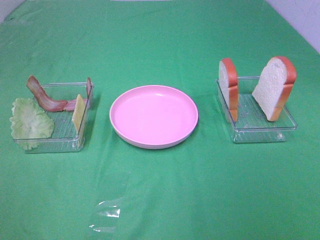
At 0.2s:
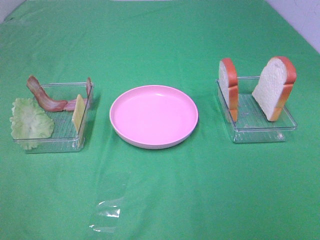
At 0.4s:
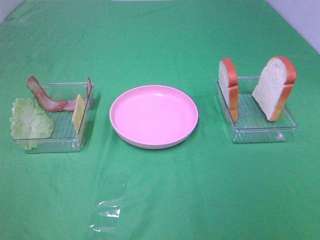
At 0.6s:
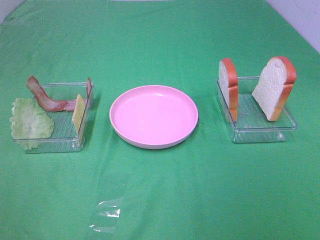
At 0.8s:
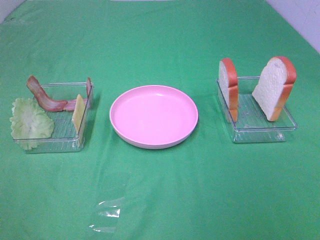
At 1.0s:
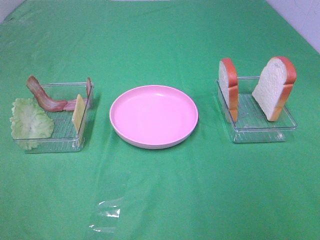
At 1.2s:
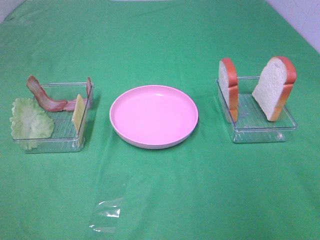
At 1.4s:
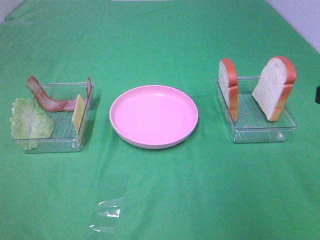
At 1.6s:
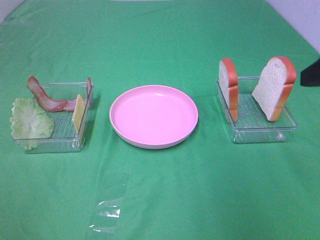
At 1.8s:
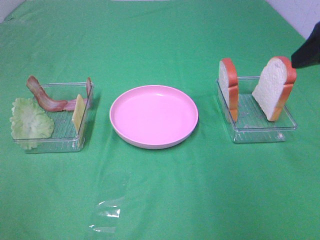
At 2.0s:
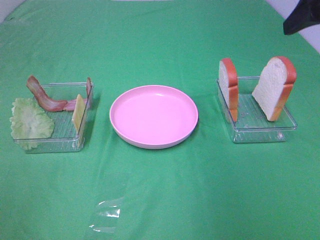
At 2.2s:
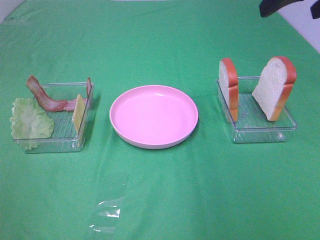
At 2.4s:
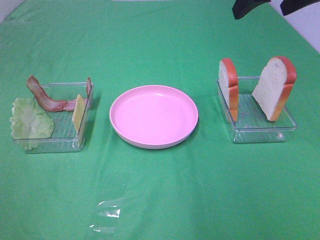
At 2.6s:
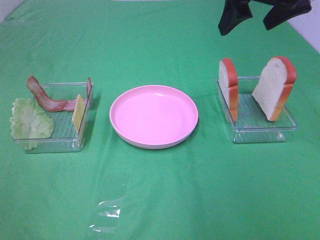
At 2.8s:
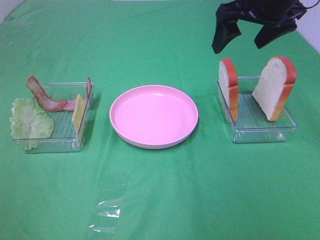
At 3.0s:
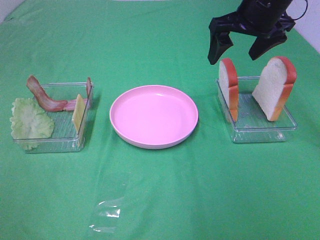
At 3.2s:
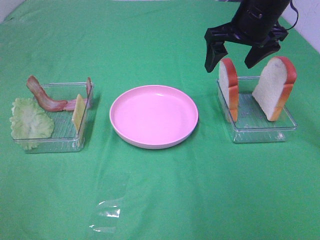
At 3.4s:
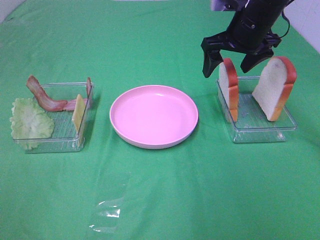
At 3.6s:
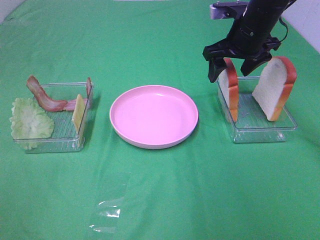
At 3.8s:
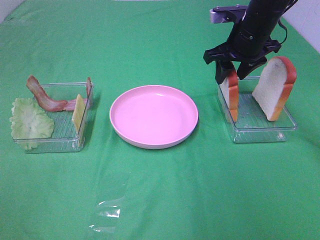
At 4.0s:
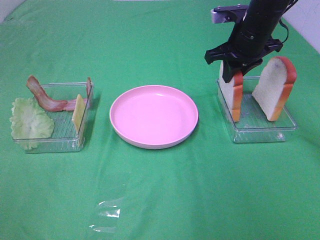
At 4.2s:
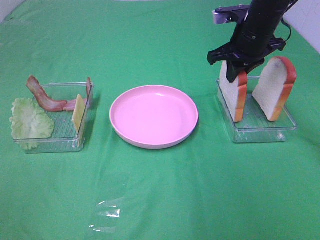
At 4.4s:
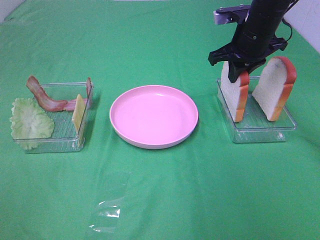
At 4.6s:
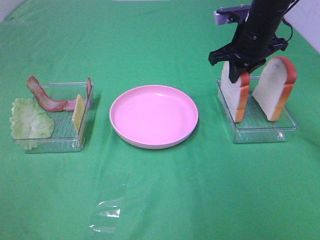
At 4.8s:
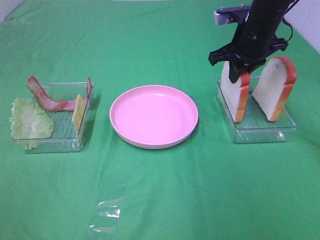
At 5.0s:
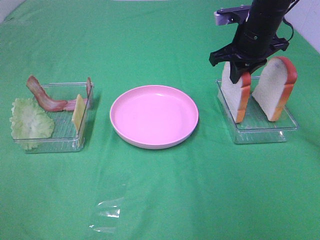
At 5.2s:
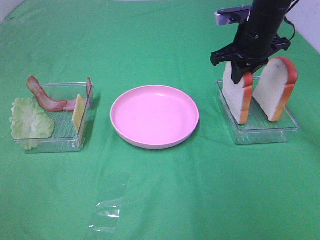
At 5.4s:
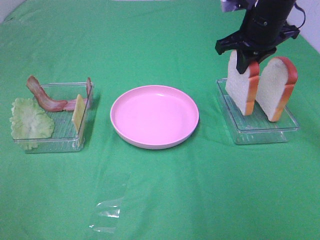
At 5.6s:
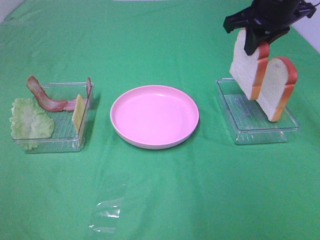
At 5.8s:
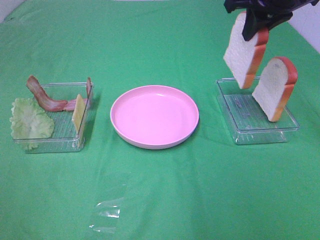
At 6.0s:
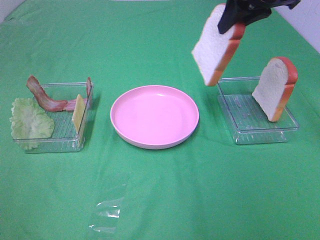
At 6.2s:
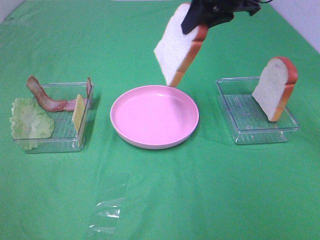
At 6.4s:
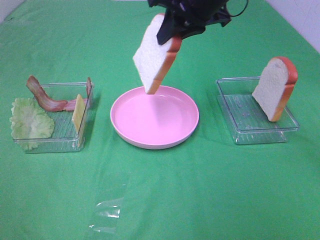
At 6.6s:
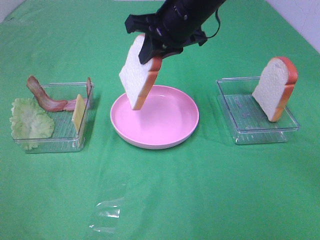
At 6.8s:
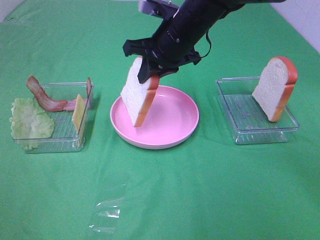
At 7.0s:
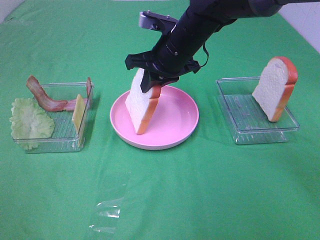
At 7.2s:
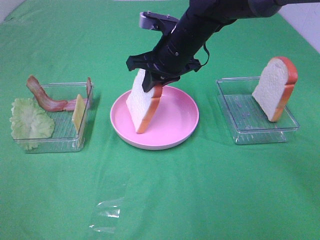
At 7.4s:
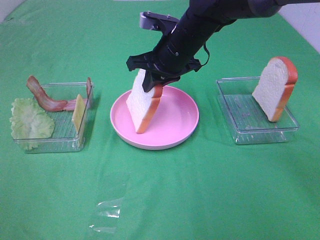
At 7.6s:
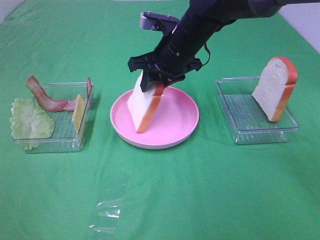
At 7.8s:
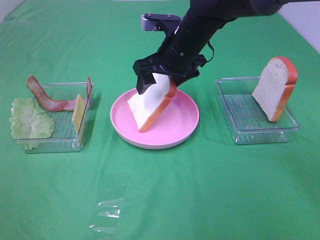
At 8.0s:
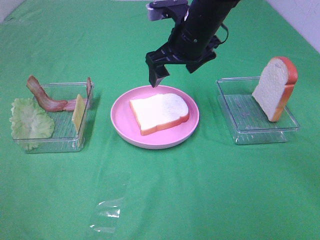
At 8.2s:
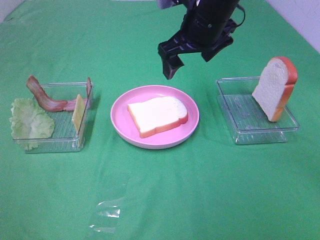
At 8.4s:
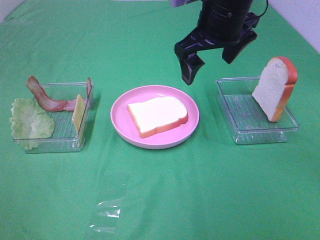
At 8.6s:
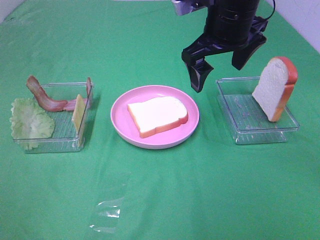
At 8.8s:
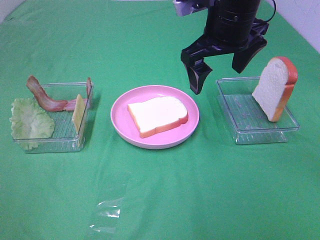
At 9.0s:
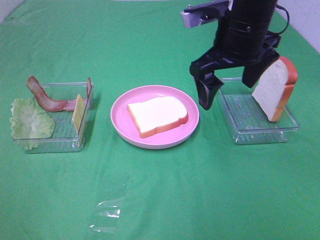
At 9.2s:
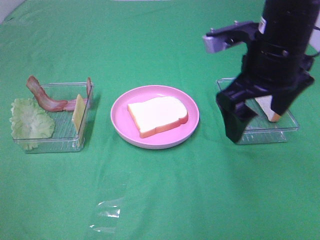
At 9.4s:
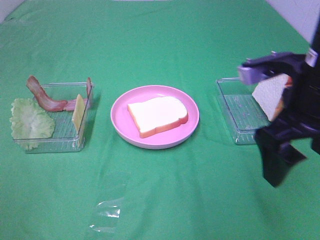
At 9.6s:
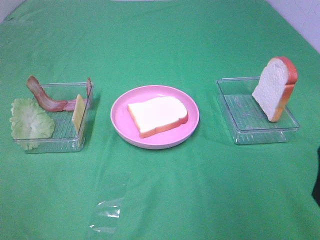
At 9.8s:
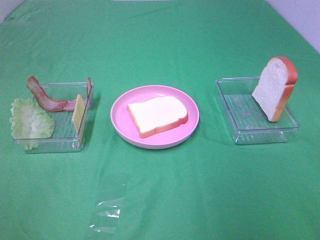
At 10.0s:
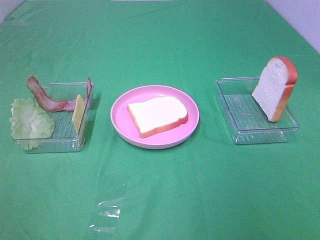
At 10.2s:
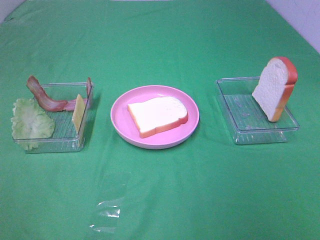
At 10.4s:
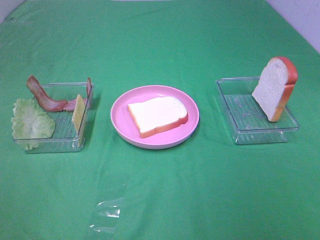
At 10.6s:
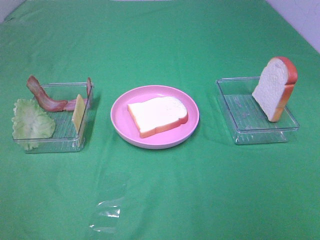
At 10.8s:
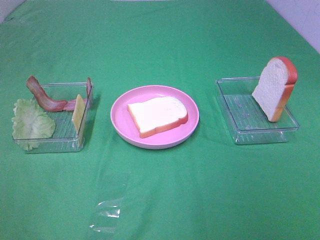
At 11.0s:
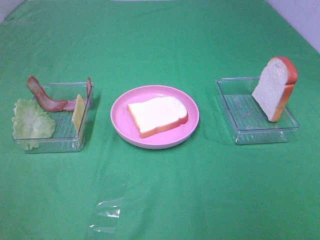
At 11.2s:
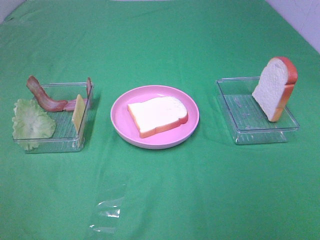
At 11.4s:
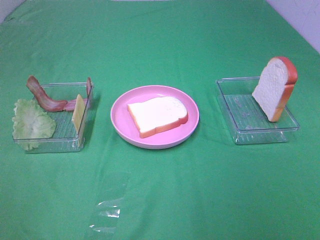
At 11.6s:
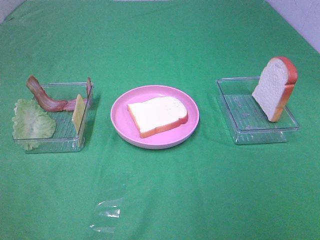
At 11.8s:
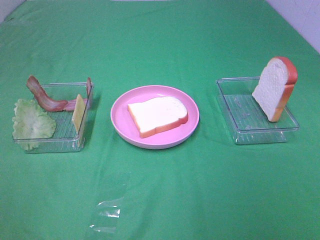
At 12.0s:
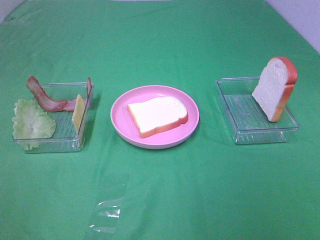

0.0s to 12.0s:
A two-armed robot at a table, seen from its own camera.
Task of the whole recording: Make sandwiches.
Step, 0.0s to 4.0s: Right hand:grab the bread slice.
Step, 4.2s to 8.0s: Right hand:place the bread slice on the plate.
1.6s to 3.0s: The right gripper moves forward and to the left, roughly 25 cm.
3.0s to 4.4s: The right gripper travels downward by some 5 cm, and closes up.
4.4s to 6.0s: The right gripper shifts approximately 15 cm upward and backward.
6.0s to 7.6s: The right gripper moves downward and to the left, about 20 cm, and opens its fingers.
7.6s to 9.0s: The right gripper travels backward, upward and to the right by roughly 15 cm, and opens its fingers.
9.0s to 10.4s: The right gripper travels backward and to the right by some 35 cm.

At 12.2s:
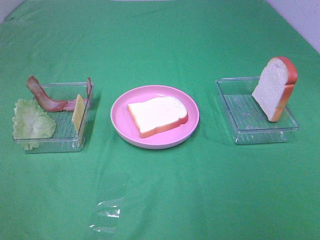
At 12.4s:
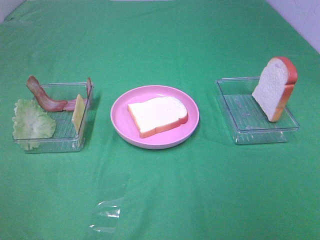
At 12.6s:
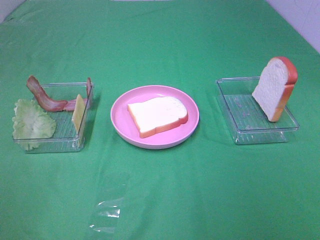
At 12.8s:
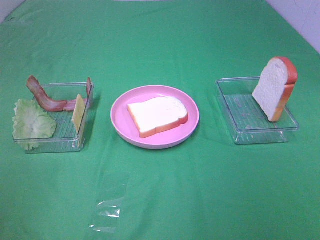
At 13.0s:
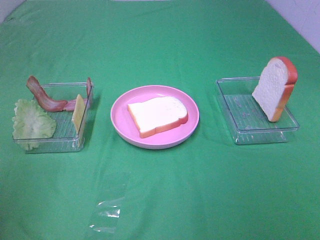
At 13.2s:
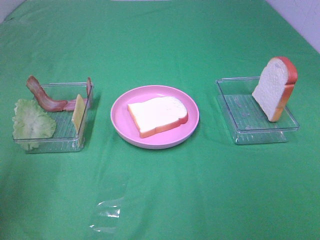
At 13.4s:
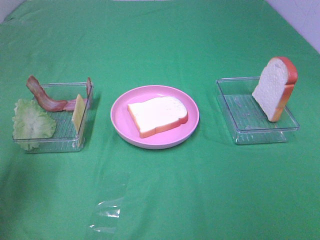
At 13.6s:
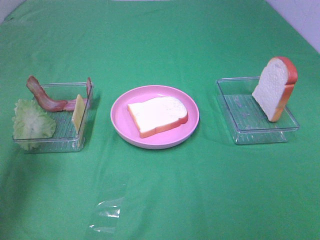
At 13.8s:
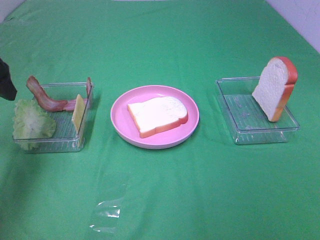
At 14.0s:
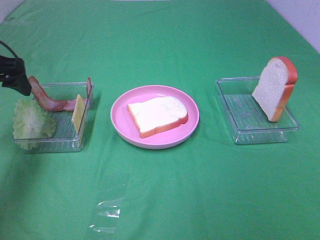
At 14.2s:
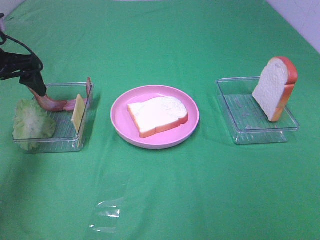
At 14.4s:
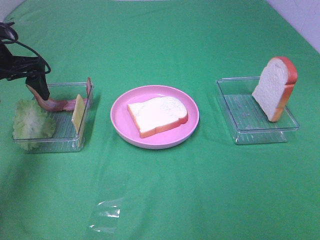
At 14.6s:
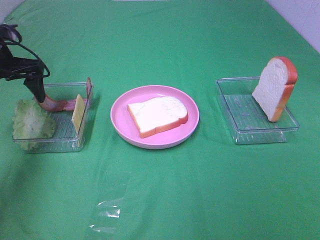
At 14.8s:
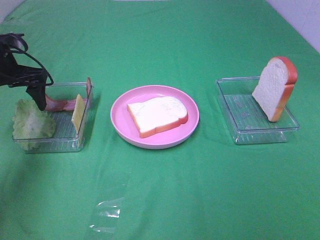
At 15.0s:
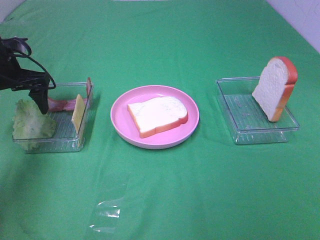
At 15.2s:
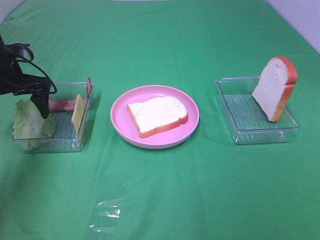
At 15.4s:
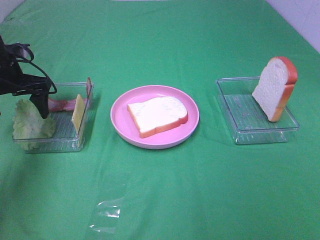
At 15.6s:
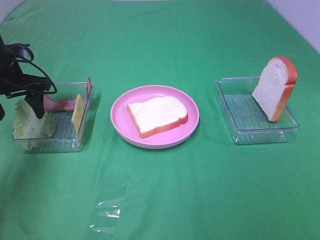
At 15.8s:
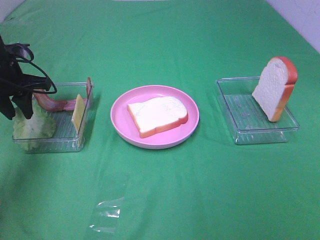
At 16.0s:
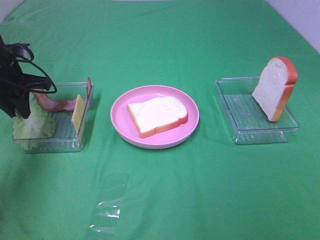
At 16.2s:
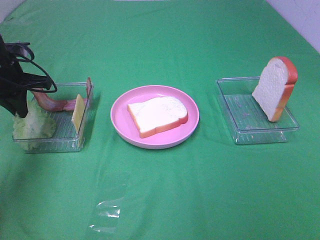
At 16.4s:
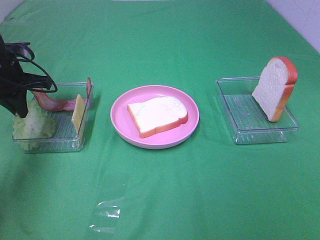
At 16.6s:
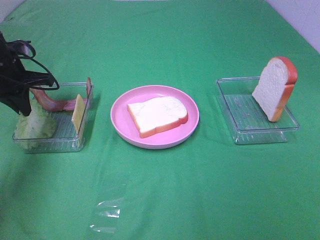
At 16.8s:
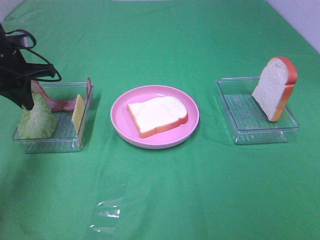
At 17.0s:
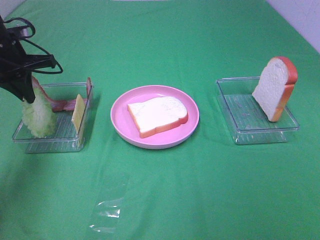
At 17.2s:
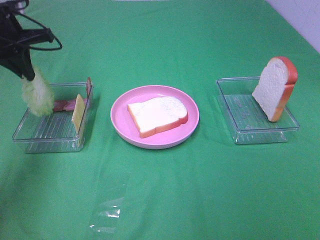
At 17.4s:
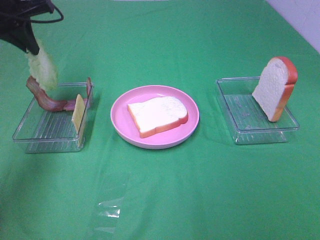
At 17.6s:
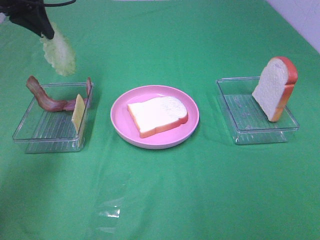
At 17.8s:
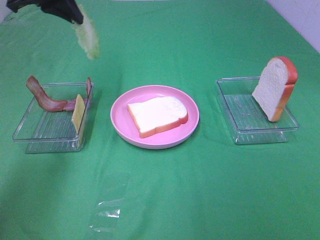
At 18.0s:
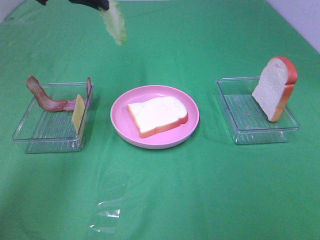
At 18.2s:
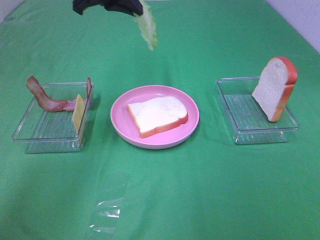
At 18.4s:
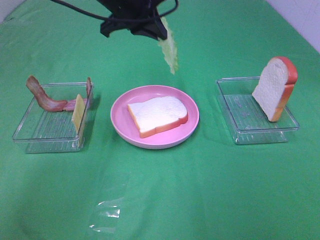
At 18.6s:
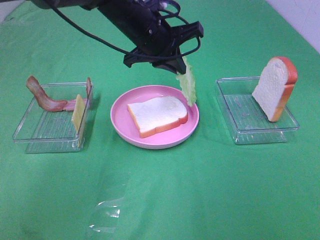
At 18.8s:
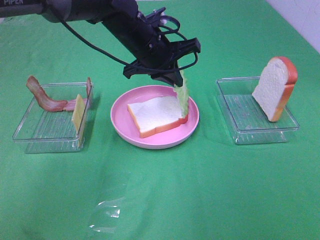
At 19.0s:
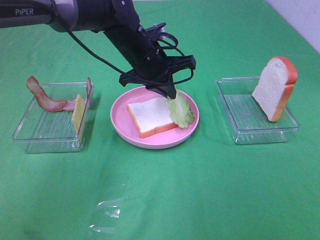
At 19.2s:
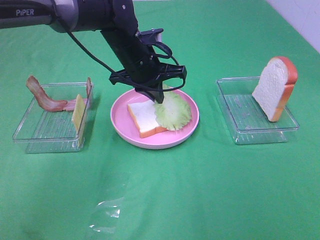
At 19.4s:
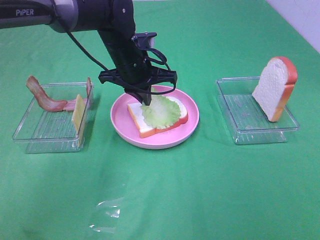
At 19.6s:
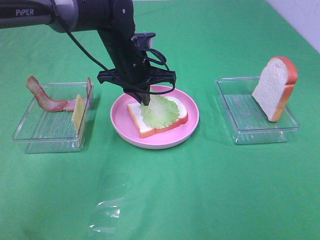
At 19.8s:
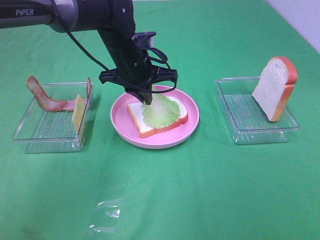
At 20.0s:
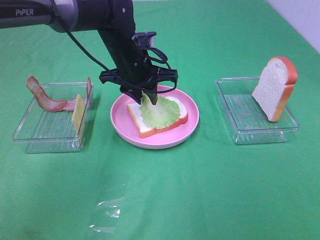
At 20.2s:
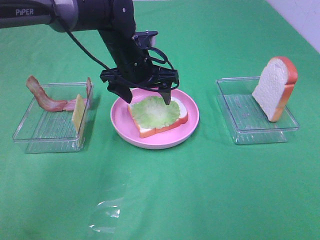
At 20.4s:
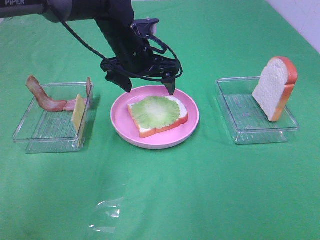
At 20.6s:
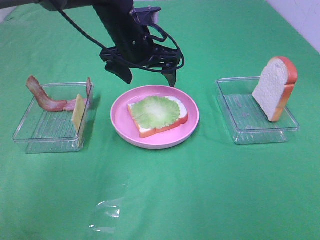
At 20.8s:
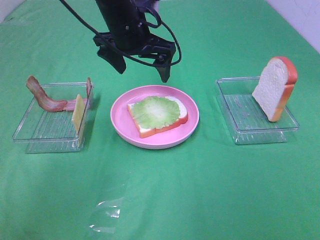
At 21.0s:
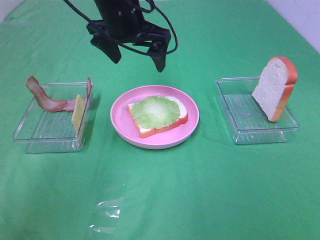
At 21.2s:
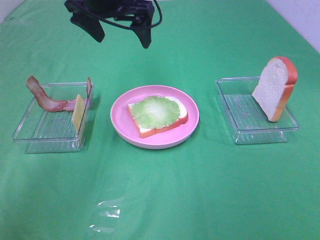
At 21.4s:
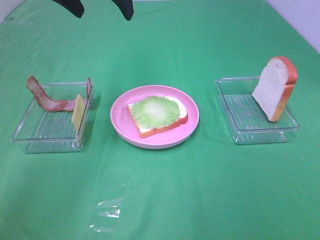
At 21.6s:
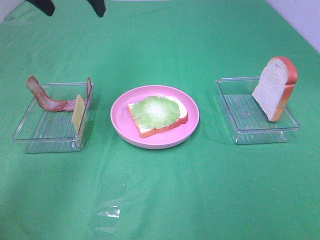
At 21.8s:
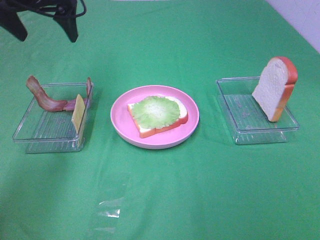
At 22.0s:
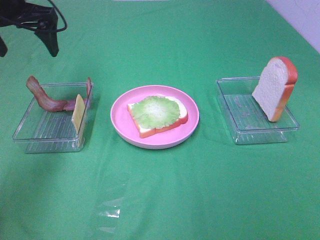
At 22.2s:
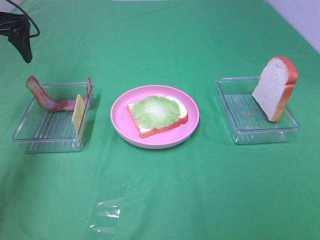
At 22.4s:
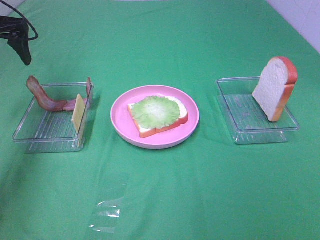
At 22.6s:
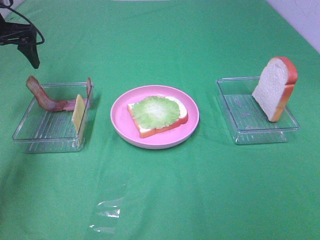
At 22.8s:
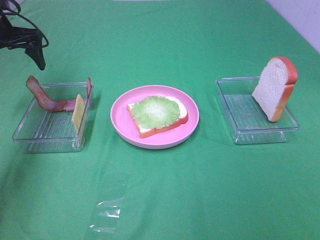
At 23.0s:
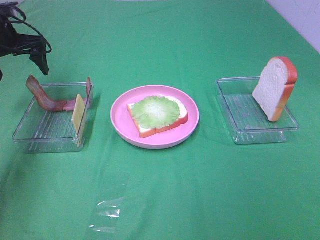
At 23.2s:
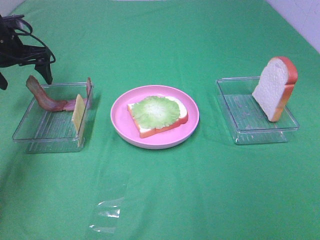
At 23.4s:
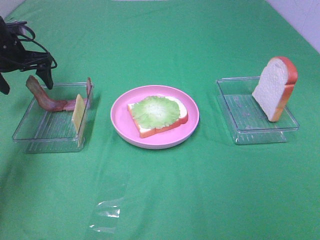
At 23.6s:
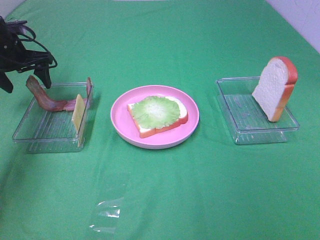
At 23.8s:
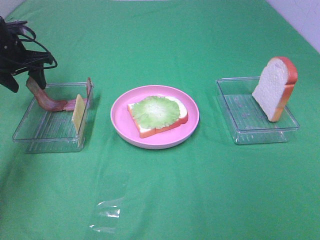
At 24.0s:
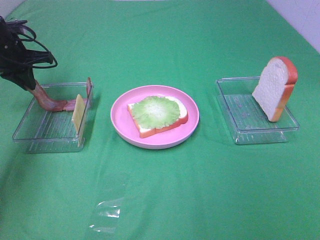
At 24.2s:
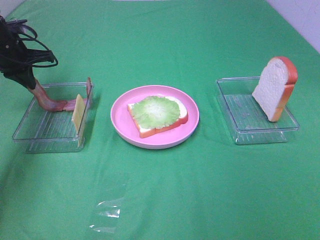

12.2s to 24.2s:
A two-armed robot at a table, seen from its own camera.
Task of the whole recording: Make sandwiches.
Step, 12.2s to 16.2s: Left hand:grab the lettuce slice.
Step, 16.4s to 20.2s: Left hand:place the lettuce slice on the bread slice.
Step, 20.4s to 24.2s: Left hand:grab the bacon.
12.2s to 13.8s: The left gripper shifts about 30 cm forward.
13.8s to 15.2s: The left gripper travels forward and downward by approximately 10 cm.
15.2s to 16.6s: The left gripper closes.
16.6s to 18.2s: The left gripper is displaced to the right and upward by about 25 cm.
18.2s to 19.8s: The left gripper goes approximately 15 cm downward.
19.8s to 21.2s: The left gripper moves upward, about 15 cm, and opens up.
21.2s to 22.6s: The left gripper goes roughly 20 cm to the left.
22.6s to 24.2s: The left gripper is displaced downward by some 5 cm, and closes.
